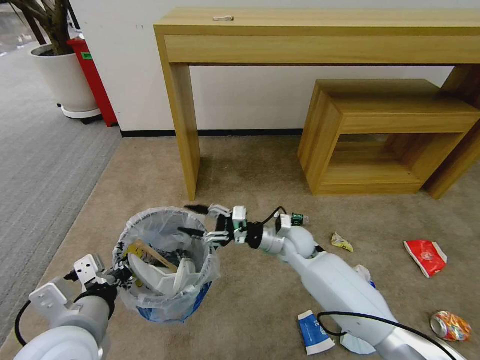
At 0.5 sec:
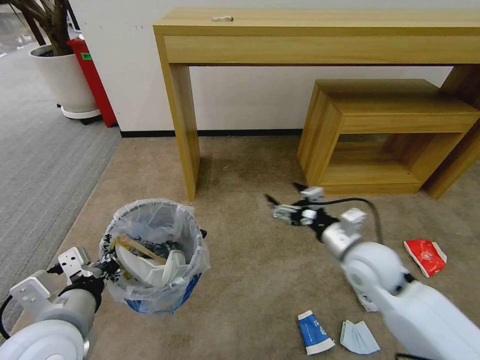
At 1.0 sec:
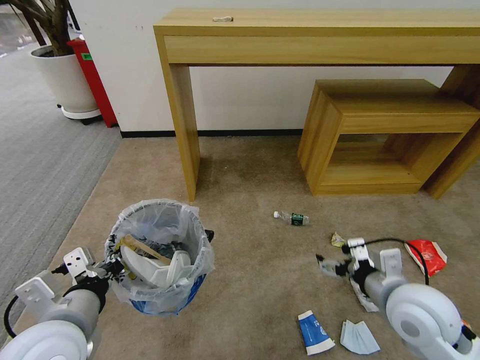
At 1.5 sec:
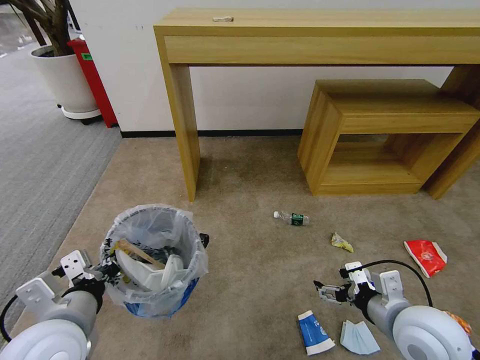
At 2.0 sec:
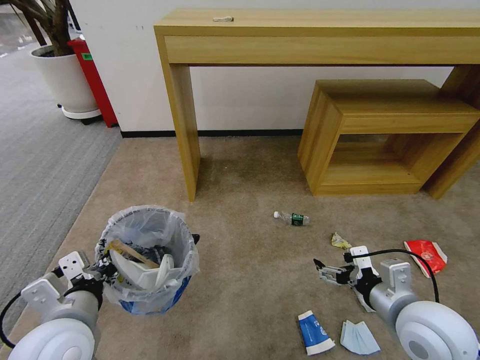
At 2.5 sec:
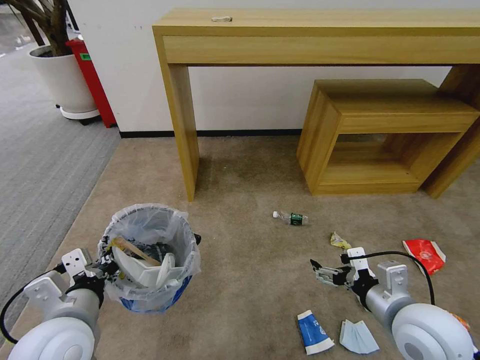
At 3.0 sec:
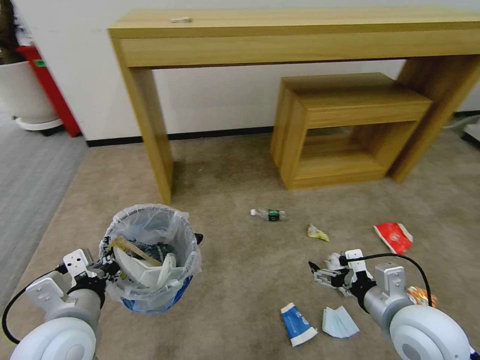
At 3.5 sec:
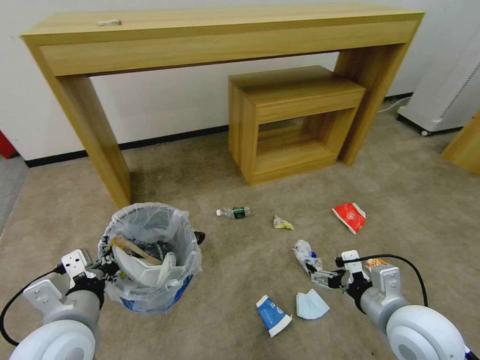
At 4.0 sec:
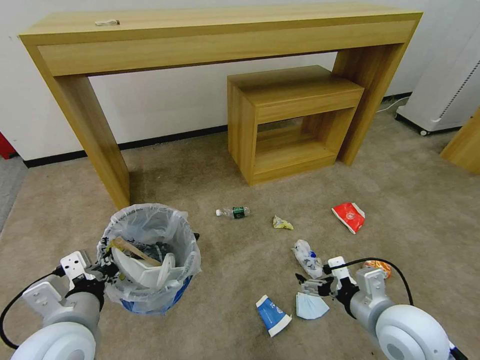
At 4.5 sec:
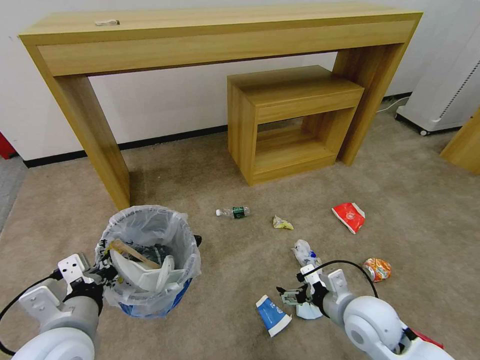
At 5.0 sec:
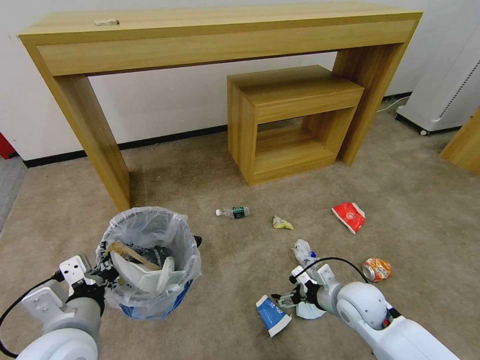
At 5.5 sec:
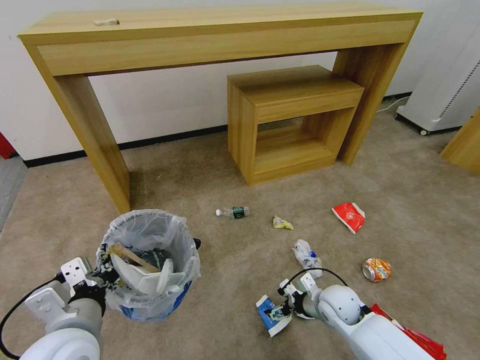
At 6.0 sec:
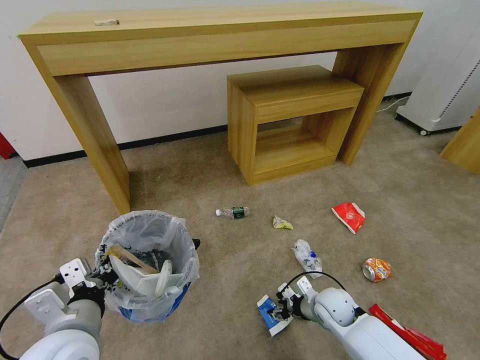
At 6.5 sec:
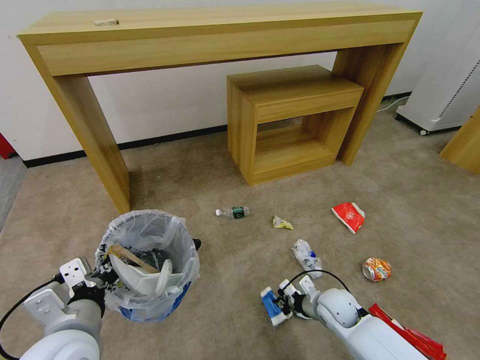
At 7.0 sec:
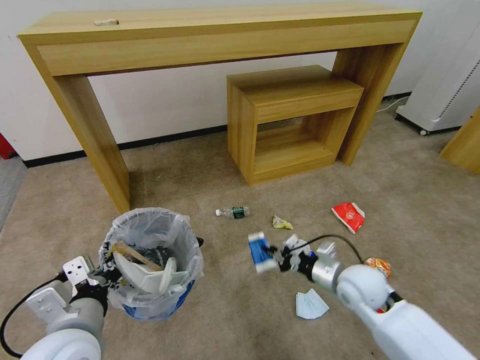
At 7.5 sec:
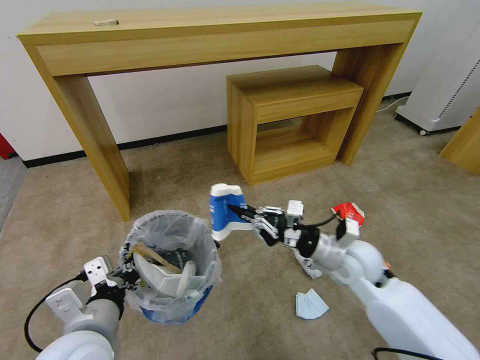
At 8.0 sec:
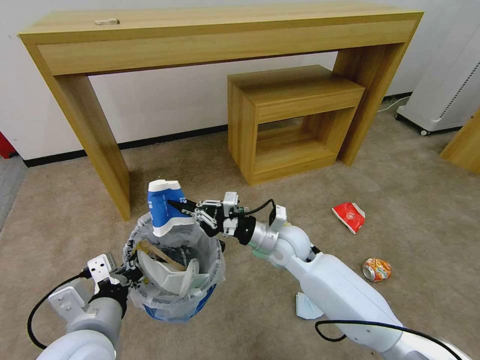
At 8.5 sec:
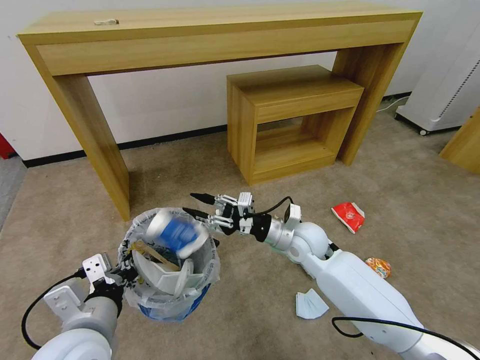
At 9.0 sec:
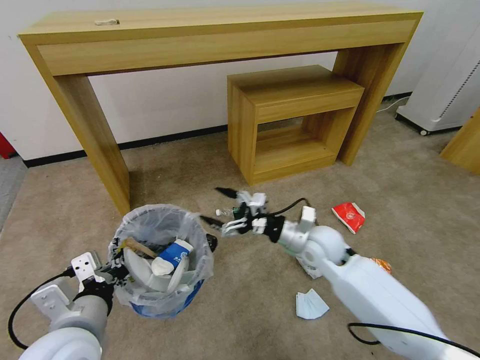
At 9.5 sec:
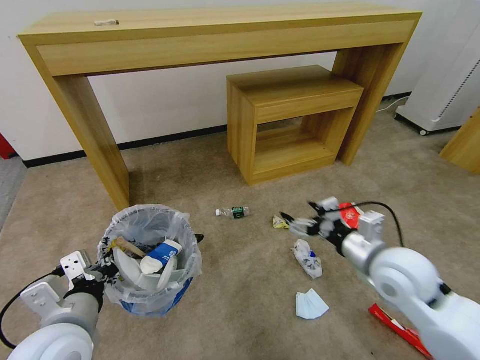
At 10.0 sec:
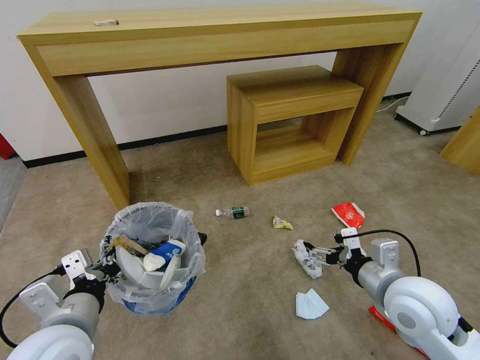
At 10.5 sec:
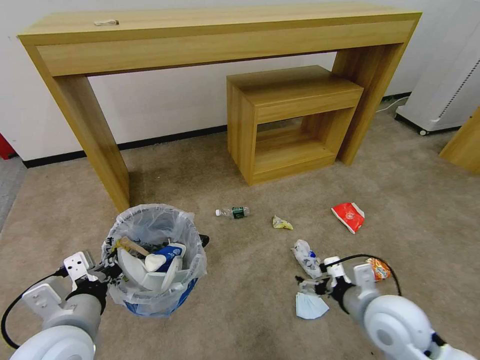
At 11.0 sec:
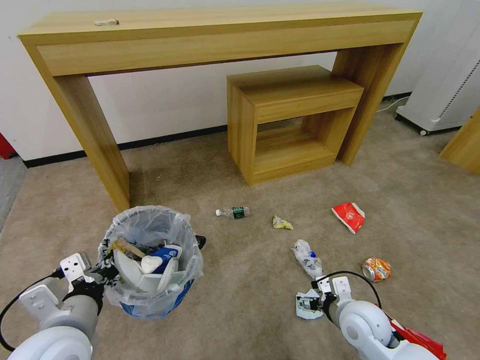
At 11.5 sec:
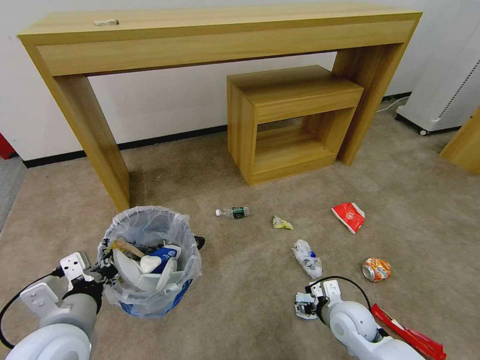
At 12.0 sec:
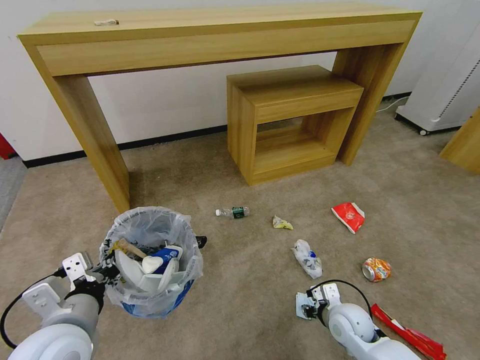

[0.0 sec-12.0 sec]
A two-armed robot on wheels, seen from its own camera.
Task of the whole recording: Pick up the trash bin and place the garbage on the floor into it.
0.0 sec to 2.0 sec: The right gripper goes about 30 cm backward, to the right and upward, and opens.
4.0 sec to 6.0 sec: The right gripper shifts about 20 cm downward and forward, and closes its fingers.
6.0 sec to 8.0 sec: The right gripper travels upward, to the left and forward by roughly 25 cm, and closes its fingers.
8.0 sec to 10.0 sec: The right gripper heads to the right and backward, covering some 25 cm, and opens its fingers.
10.0 sec to 12.0 sec: The right gripper heads downward, covering about 20 cm, and closes its fingers.

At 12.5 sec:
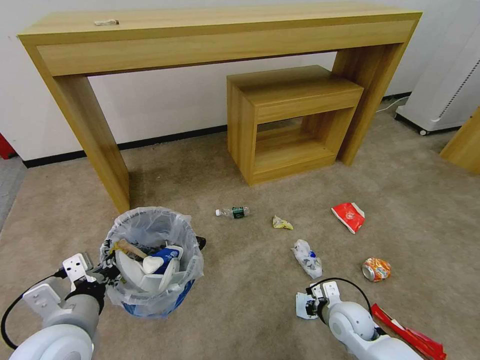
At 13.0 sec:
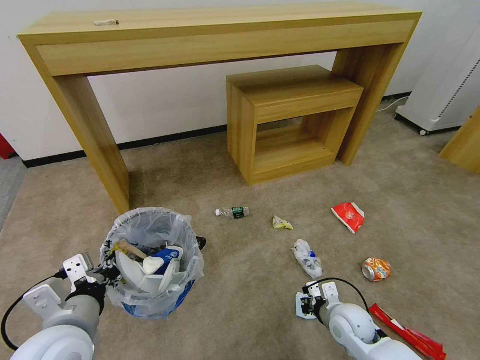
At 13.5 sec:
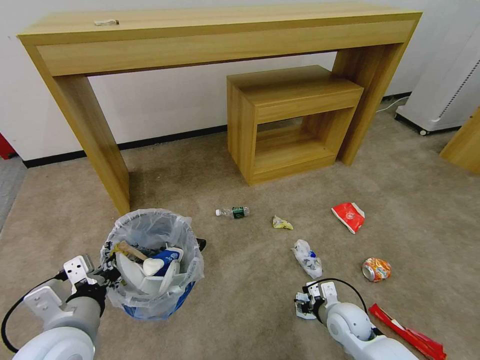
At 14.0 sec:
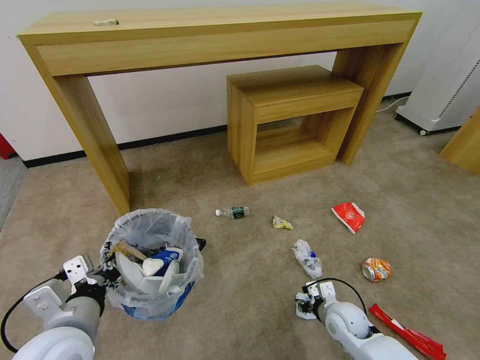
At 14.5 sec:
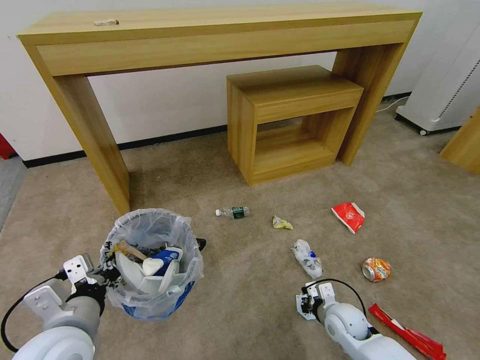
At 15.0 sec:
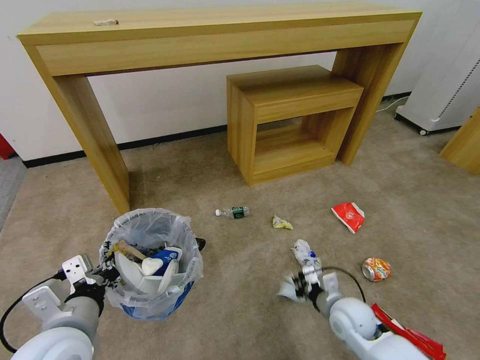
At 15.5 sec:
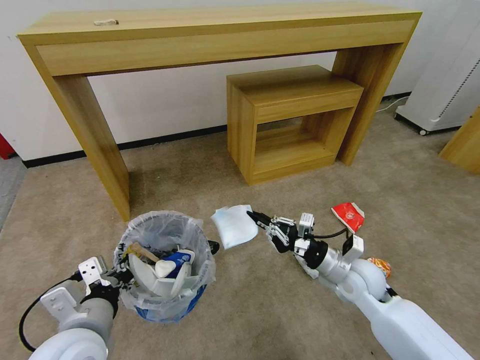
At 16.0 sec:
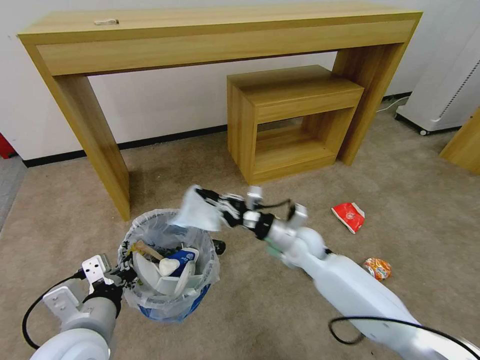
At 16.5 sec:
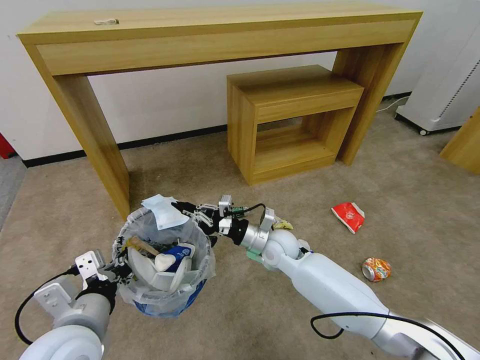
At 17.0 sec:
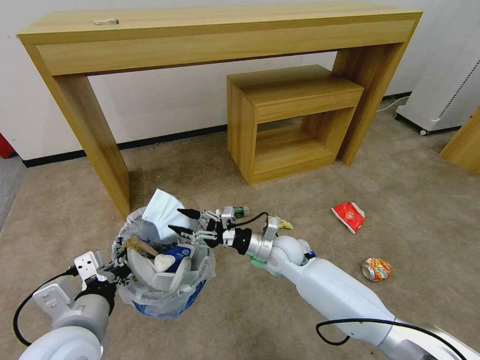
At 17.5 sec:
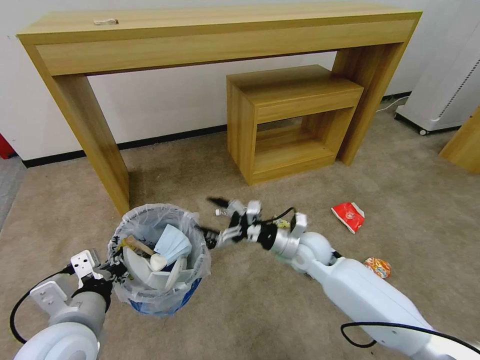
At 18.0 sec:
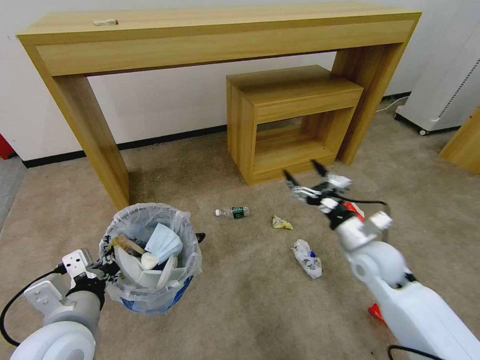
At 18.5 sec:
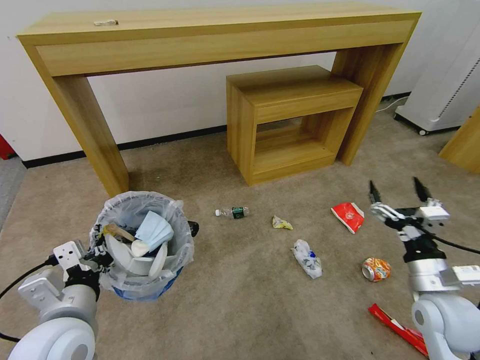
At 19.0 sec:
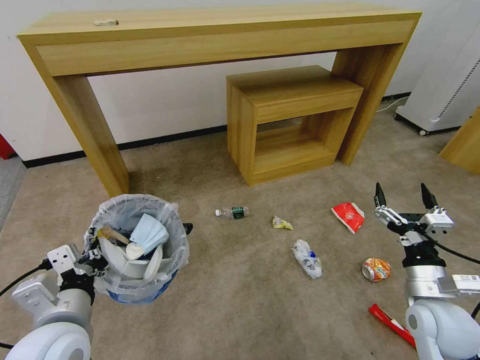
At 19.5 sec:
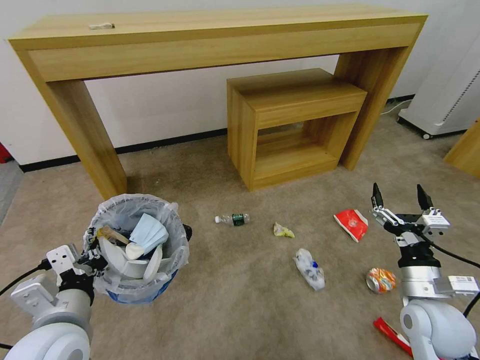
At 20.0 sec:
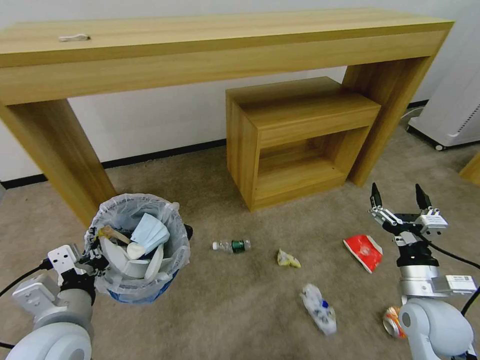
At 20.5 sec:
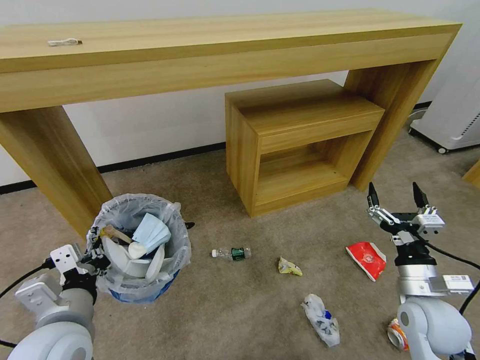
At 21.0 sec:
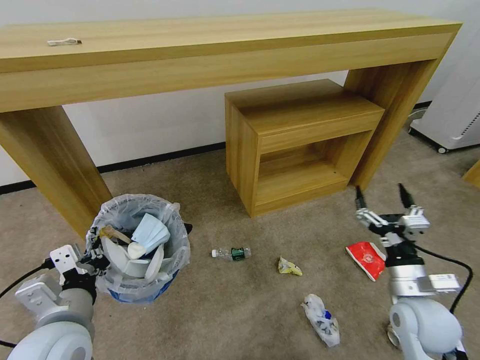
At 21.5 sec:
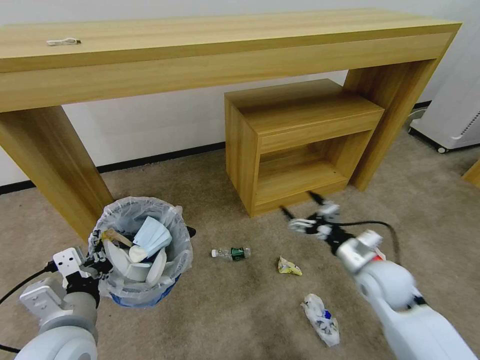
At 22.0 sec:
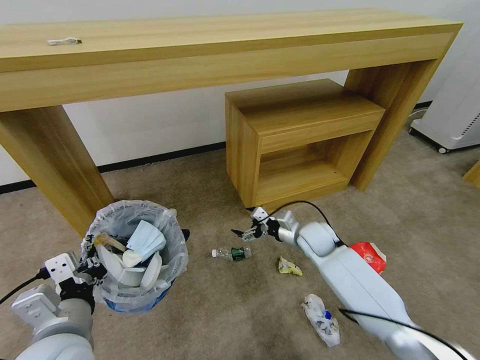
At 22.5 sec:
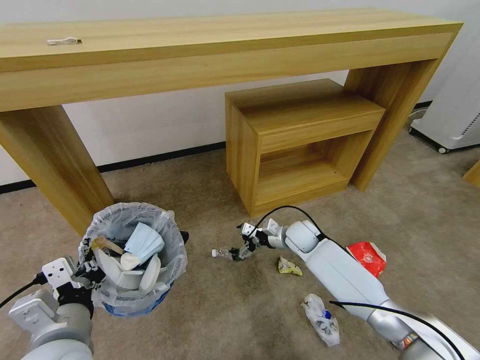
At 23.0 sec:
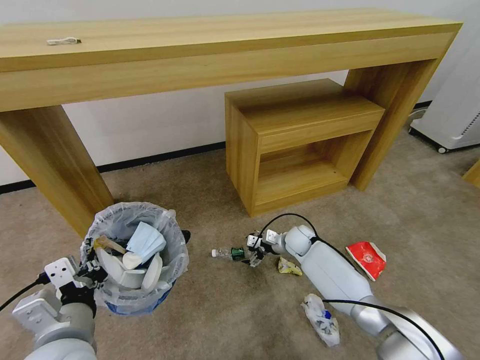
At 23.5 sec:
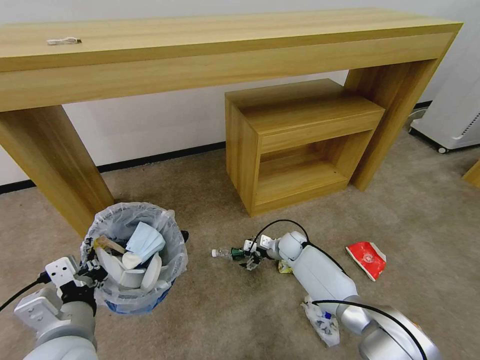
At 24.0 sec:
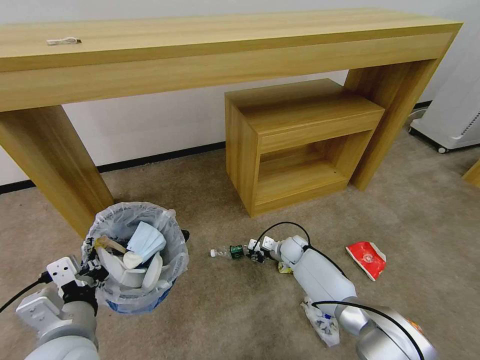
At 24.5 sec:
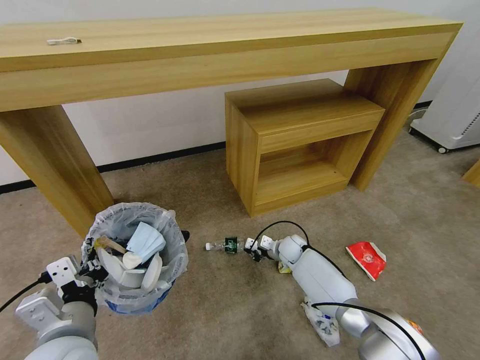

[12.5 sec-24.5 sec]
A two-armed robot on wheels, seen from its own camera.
Task of the whole recording: Pick up the trash bin and place the garbage on the floor into it.
12.5 sec to 14.5 sec: The right gripper opens, then closes once more.
14.5 sec to 16.5 sec: The right gripper travels to the left, forward and upward by approximately 25 cm.
16.5 sec to 18.5 sec: The right gripper moves to the right and backward, some 30 cm, and opens its fingers.
20.5 sec to 22.5 sec: The right gripper heads forward and to the left, covering about 30 cm.
22.5 sec to 24.5 sec: The right gripper moves downward, roughly 10 cm, and closes.

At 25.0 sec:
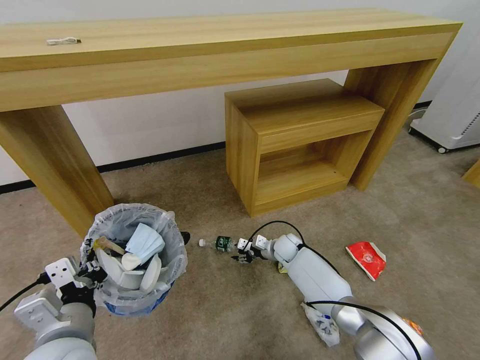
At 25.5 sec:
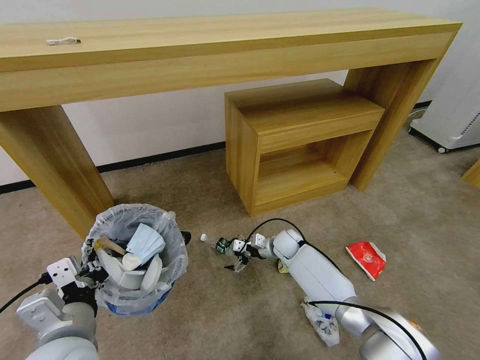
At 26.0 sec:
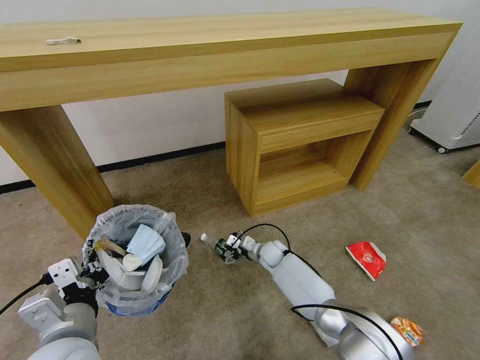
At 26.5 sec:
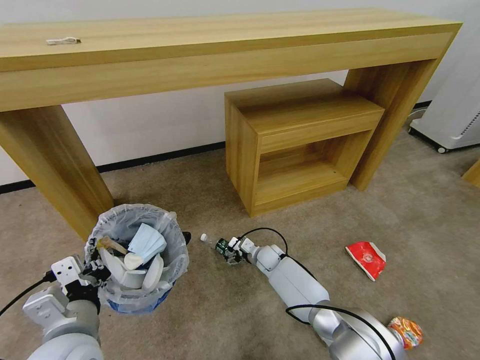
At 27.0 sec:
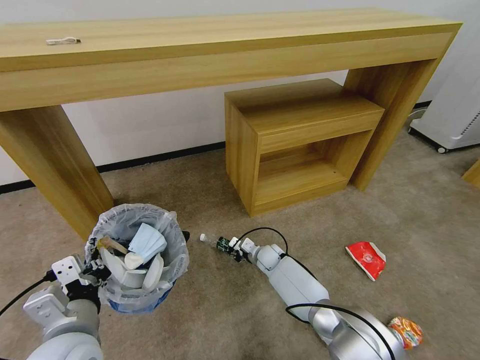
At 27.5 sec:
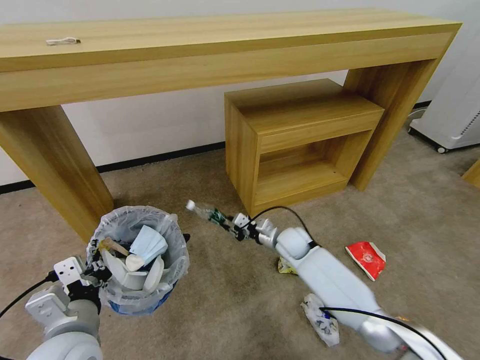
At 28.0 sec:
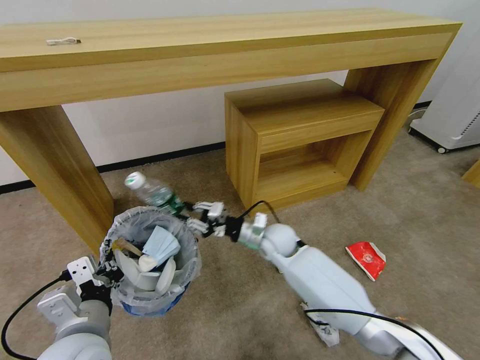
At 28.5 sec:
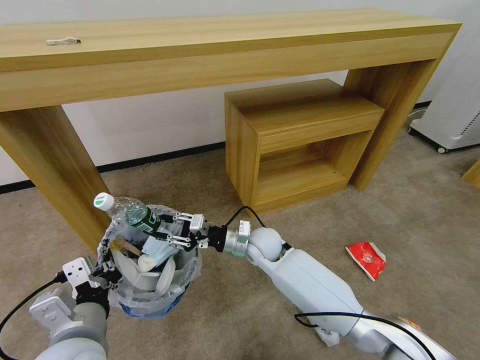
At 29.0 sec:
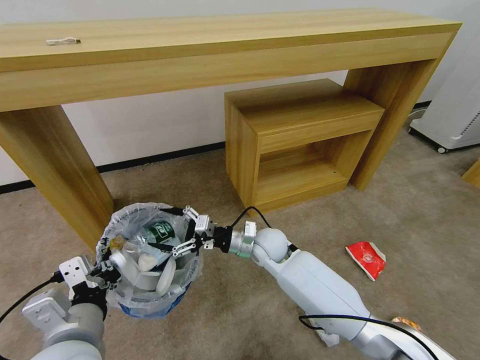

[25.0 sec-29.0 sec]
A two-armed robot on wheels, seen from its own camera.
Task of the whole recording: Pick up the trash bin and place the garbage on the floor into it.
25.0 sec to 27.0 sec: The right gripper is displaced to the left by some 5 cm, and opens and closes again.
27.0 sec to 29.0 sec: The right gripper shifts some 20 cm upward, and opens its fingers.
